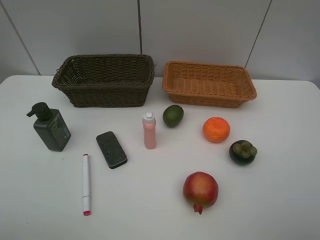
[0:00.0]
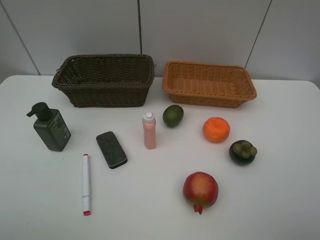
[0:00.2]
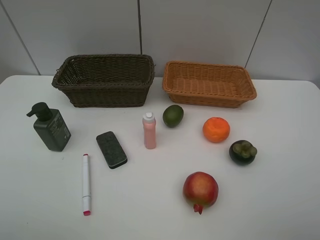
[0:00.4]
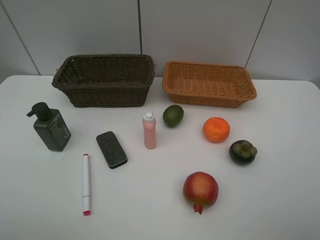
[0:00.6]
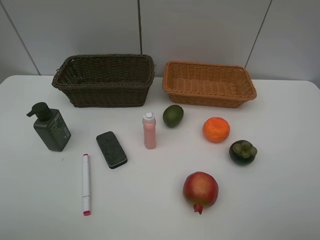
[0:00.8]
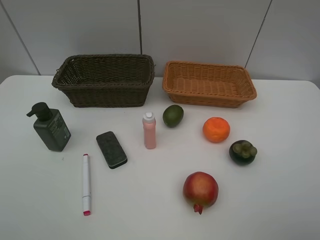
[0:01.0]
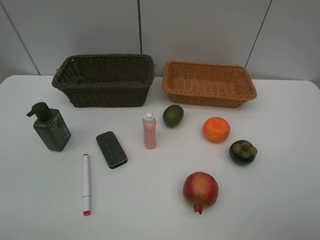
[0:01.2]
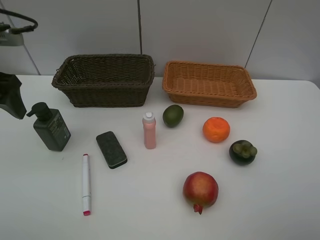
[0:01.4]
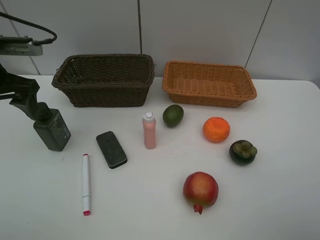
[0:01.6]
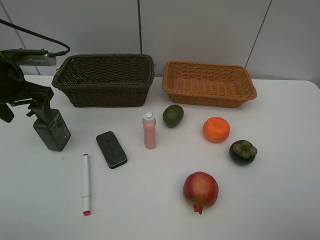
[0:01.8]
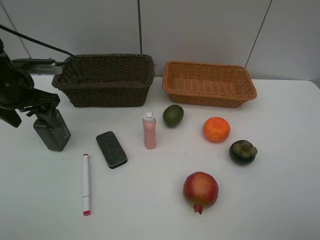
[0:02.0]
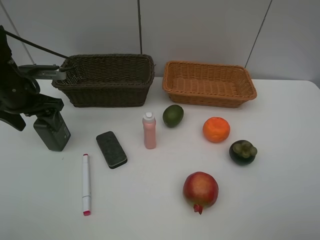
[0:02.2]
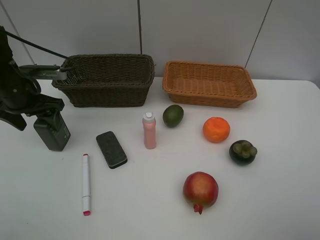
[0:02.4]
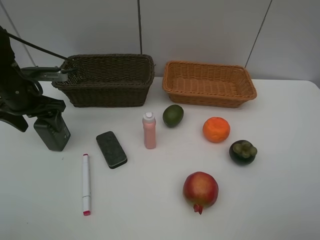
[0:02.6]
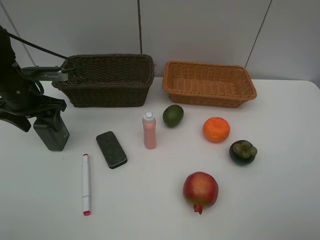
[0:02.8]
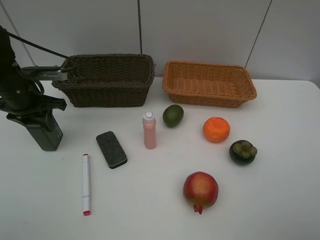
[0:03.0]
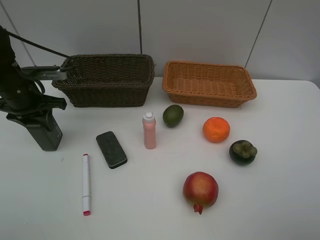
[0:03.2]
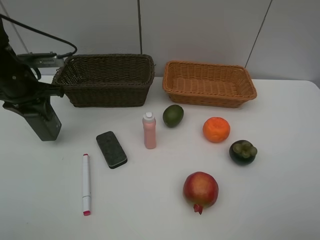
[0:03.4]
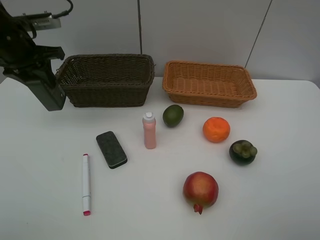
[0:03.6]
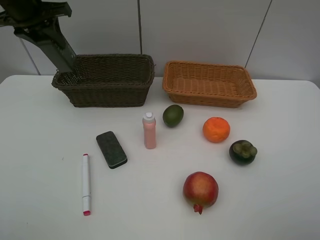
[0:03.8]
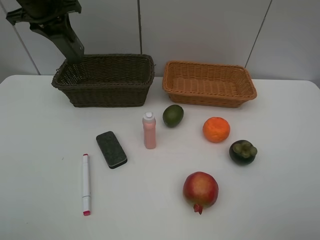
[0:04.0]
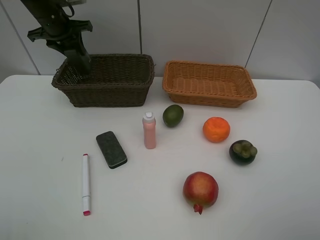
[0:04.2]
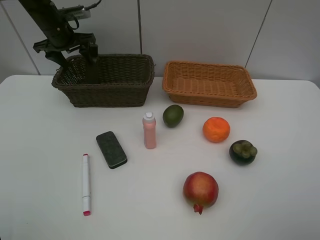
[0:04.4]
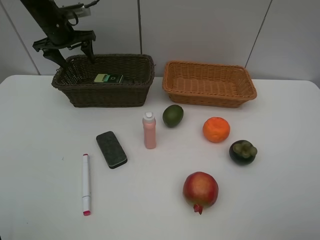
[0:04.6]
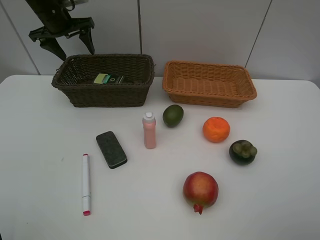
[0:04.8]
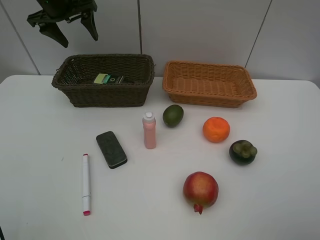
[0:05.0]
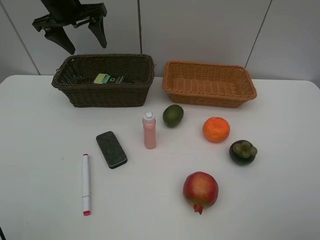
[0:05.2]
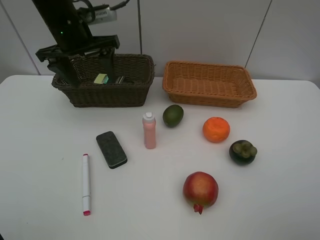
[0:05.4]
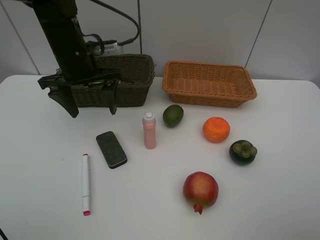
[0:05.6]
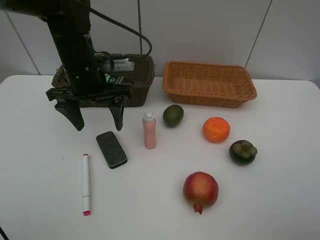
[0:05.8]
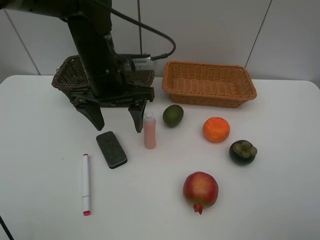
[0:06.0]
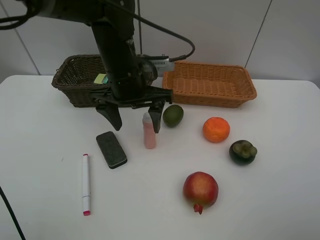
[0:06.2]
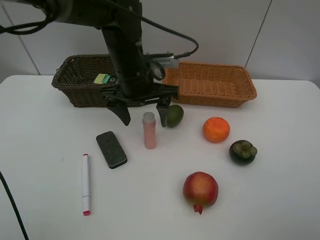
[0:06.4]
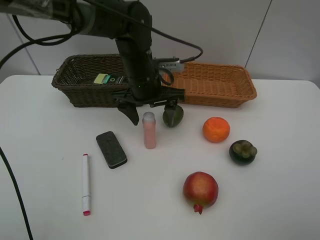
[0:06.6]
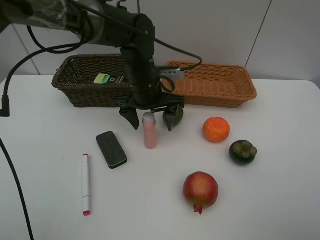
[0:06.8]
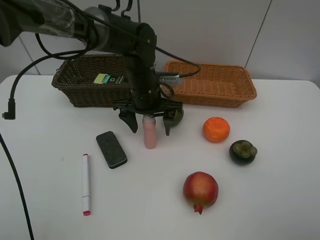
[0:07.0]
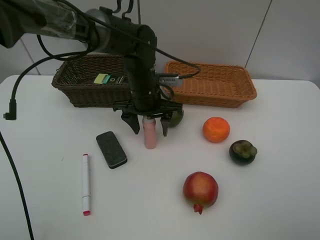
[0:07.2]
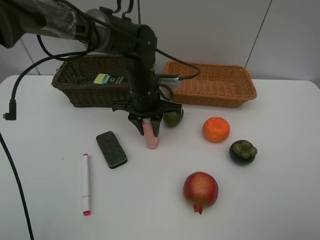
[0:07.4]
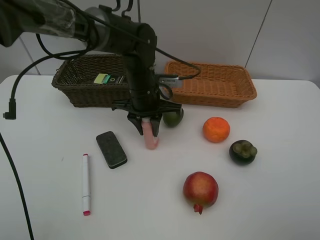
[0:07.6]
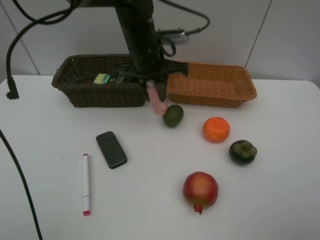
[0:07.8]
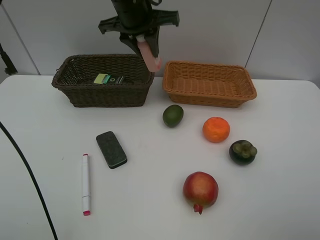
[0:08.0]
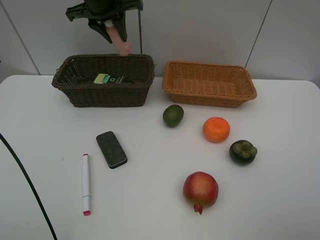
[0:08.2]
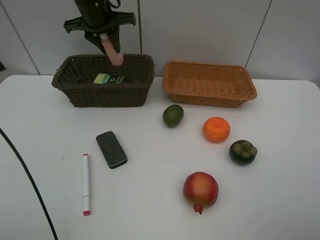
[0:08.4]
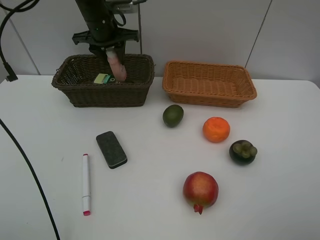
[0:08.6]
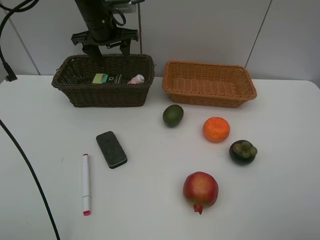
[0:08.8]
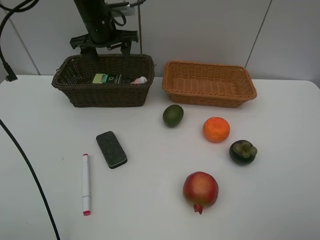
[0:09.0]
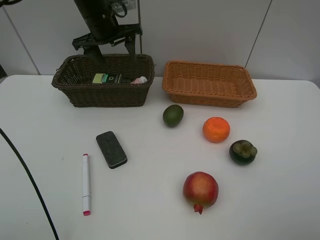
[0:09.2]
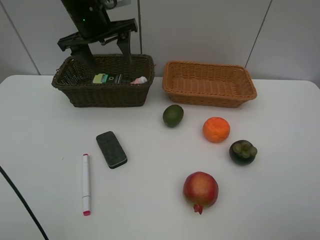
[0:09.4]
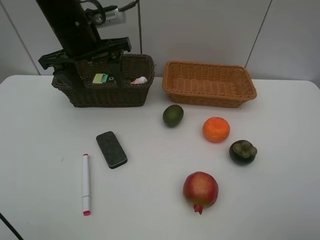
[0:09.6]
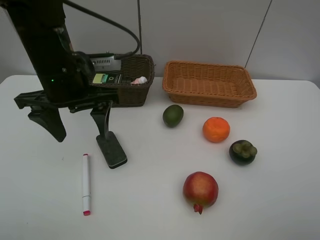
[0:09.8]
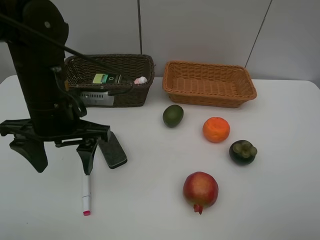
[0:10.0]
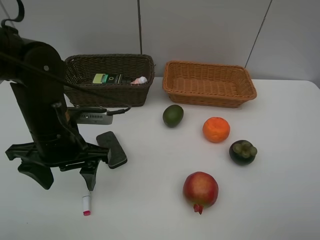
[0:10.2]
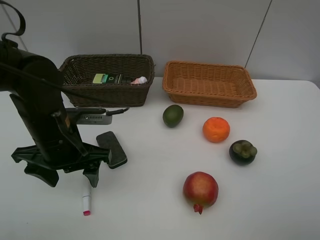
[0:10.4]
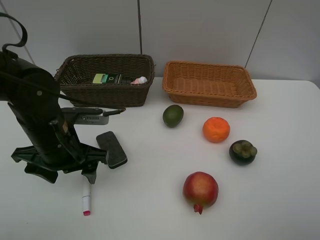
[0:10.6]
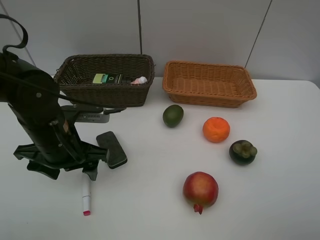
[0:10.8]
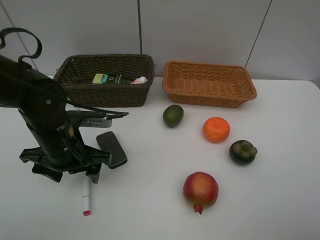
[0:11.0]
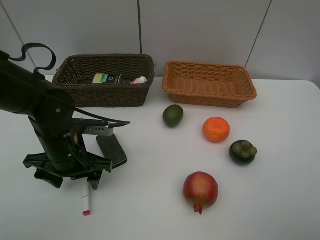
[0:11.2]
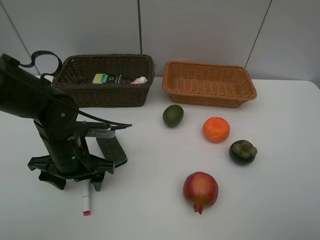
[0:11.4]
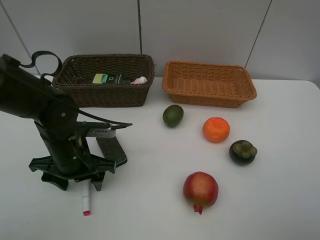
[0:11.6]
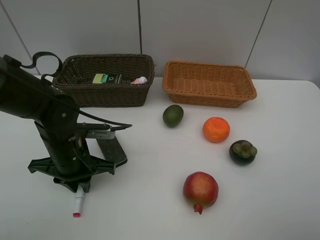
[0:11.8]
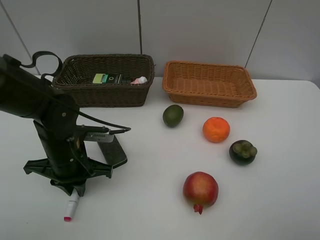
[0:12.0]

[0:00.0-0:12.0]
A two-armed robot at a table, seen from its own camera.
Task of the whole recording: Place multiple objects separately in different baskets.
Step, 0.0 to 3.4 s: Pick up the hard facial cleanser with left gripper.
Step, 3.6 to 4.8 s: Place the hard facial cleanser in the dark basket with left gripper.
Step, 5.0 to 7.6 s: Pick up the laundry detergent with left gripper.
Step, 7.8 to 8.8 s: Place the laundry detergent in the dark basket with left gripper.
0.0 to 1.6 s: The left gripper travels forward by some 30 cm.
1.6 to 3.0 s: The left gripper is displaced downward by about 10 cm, and closes its fingers.
3.0 to 4.4 s: The left gripper travels forward by some 15 cm, and opens up.
4.4 to 6.0 s: The left gripper shifts some 25 cm backward and to the right.
6.0 to 7.6 s: The left gripper moves downward and to the right, roughly 10 cm, and closes up.
7.6 to 9.0 s: The left gripper is displaced forward, to the left and upward by approximately 20 cm, and opens.
9.0 to 10.4 s: The left gripper moves backward, approximately 25 cm.
10.4 to 12.0 s: The left gripper moves downward, some 5 cm, and closes its fingers.

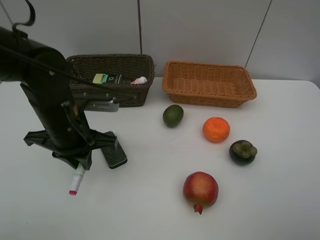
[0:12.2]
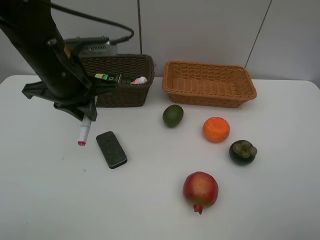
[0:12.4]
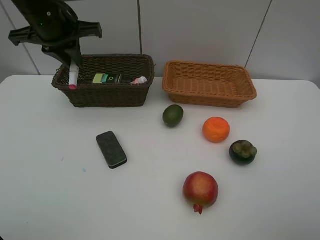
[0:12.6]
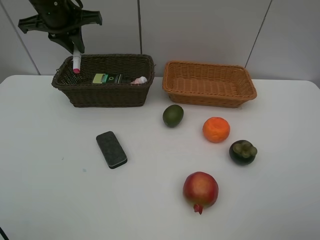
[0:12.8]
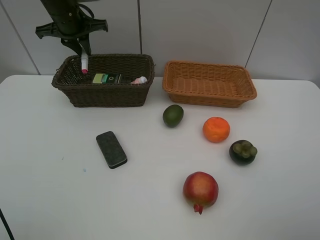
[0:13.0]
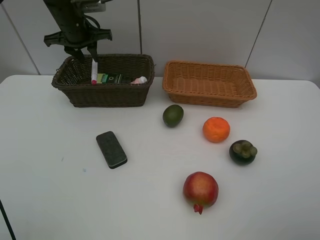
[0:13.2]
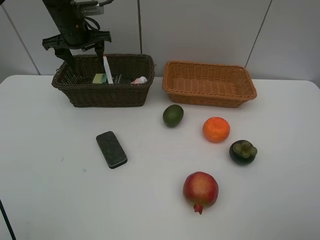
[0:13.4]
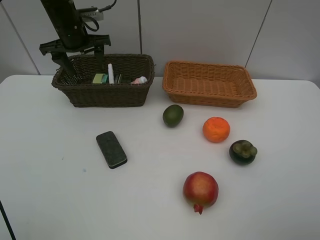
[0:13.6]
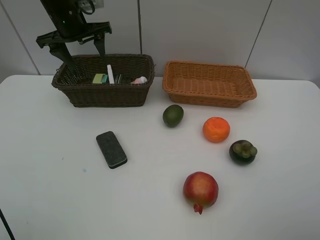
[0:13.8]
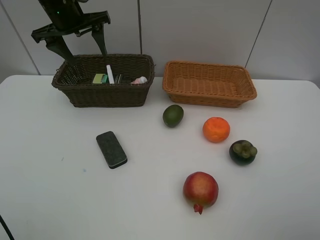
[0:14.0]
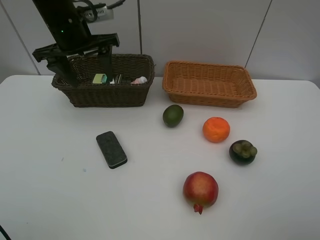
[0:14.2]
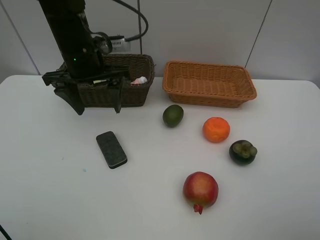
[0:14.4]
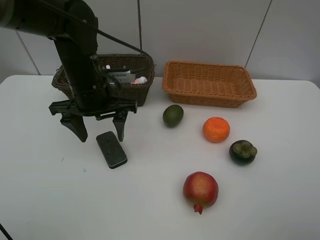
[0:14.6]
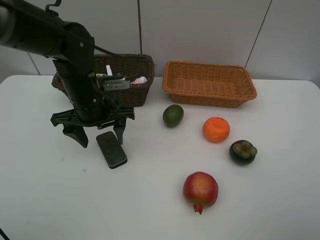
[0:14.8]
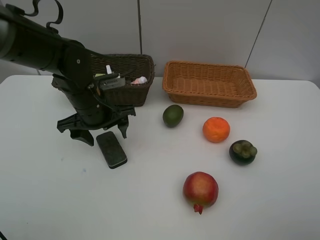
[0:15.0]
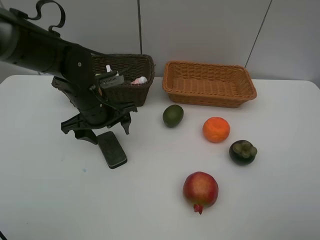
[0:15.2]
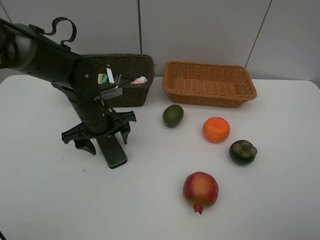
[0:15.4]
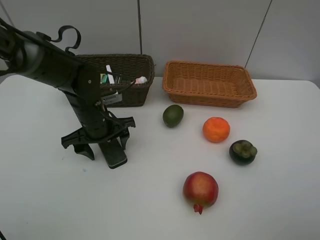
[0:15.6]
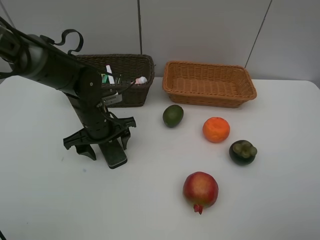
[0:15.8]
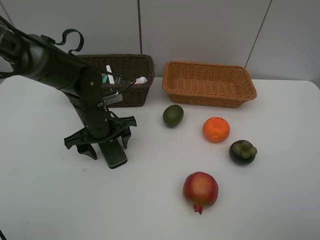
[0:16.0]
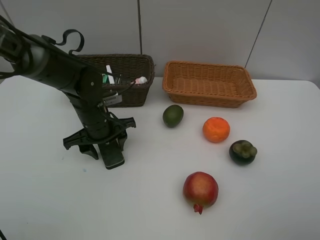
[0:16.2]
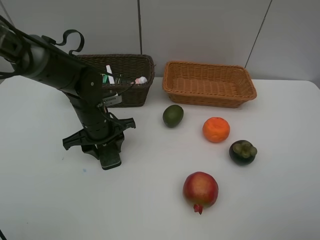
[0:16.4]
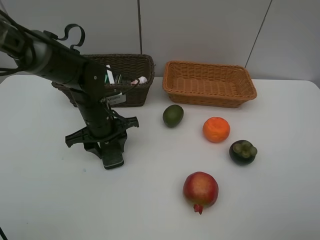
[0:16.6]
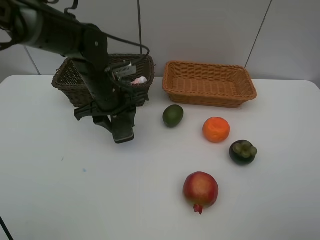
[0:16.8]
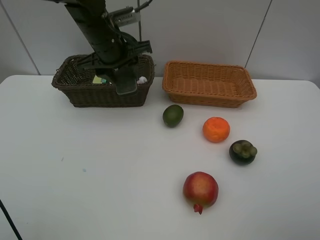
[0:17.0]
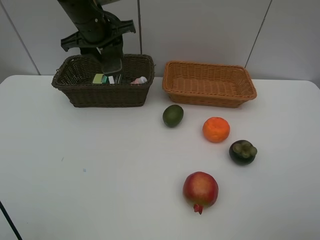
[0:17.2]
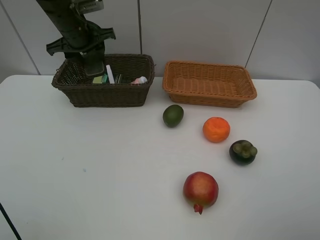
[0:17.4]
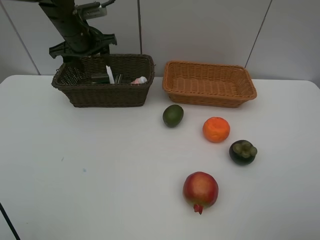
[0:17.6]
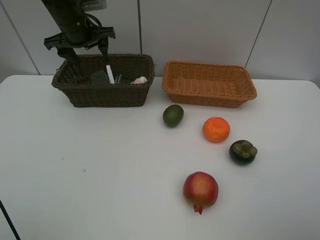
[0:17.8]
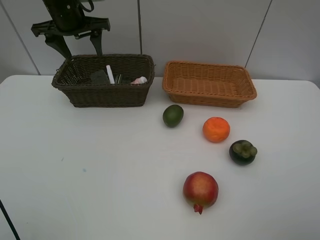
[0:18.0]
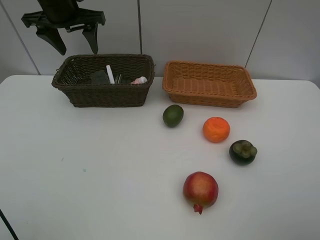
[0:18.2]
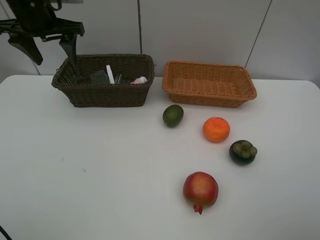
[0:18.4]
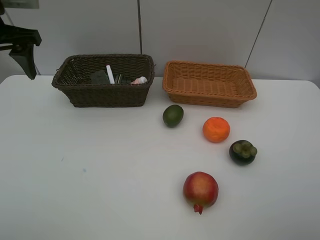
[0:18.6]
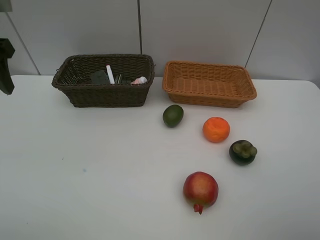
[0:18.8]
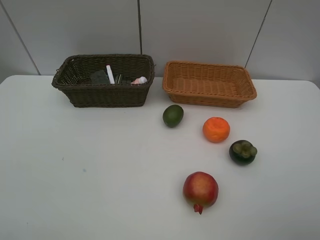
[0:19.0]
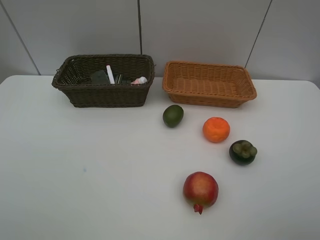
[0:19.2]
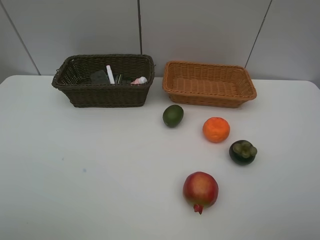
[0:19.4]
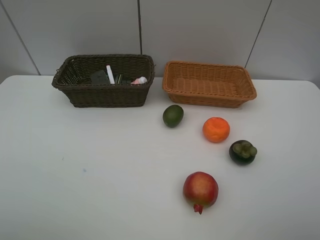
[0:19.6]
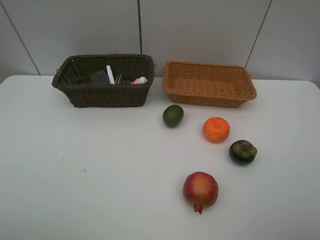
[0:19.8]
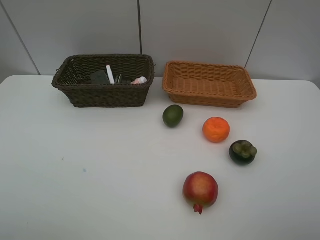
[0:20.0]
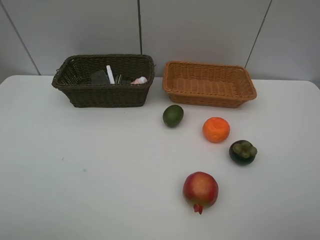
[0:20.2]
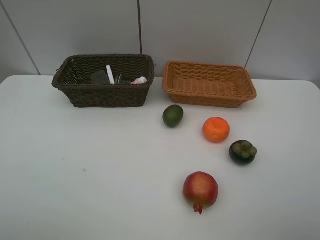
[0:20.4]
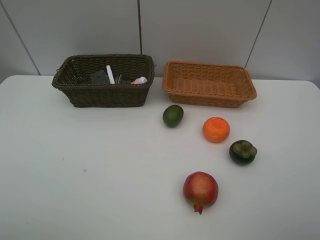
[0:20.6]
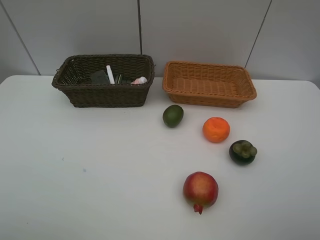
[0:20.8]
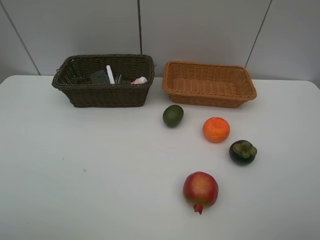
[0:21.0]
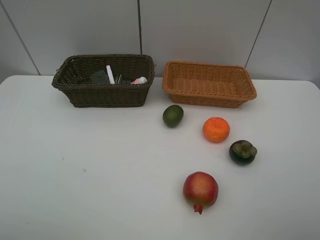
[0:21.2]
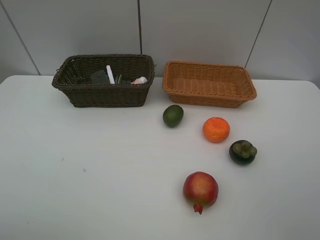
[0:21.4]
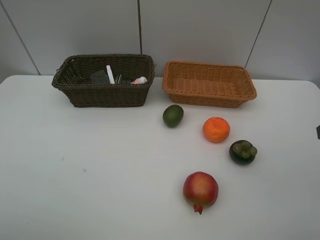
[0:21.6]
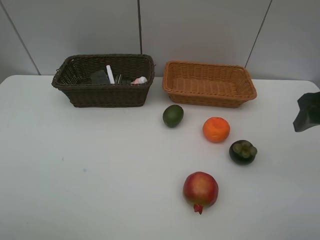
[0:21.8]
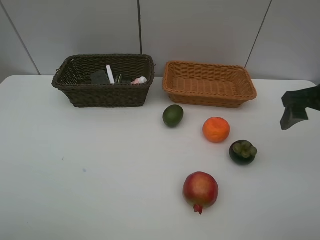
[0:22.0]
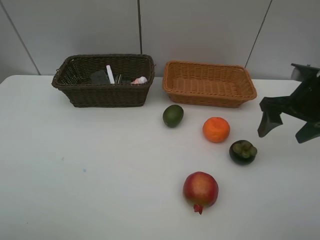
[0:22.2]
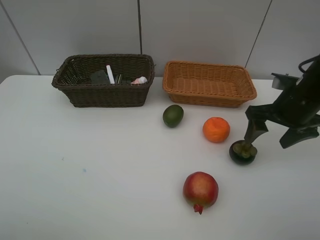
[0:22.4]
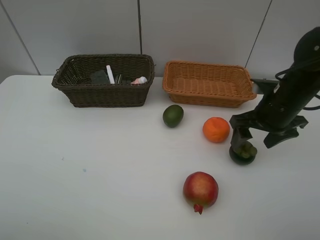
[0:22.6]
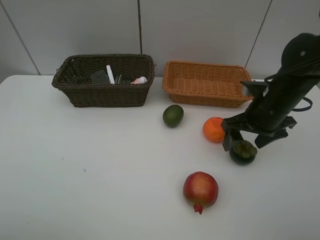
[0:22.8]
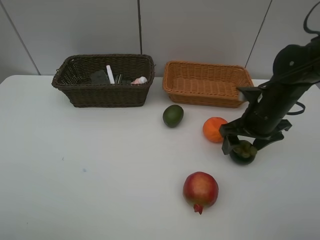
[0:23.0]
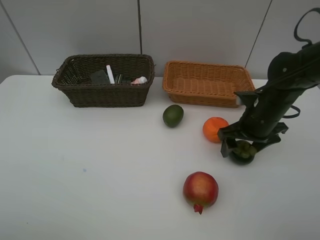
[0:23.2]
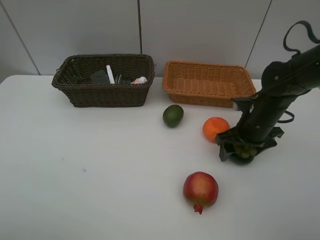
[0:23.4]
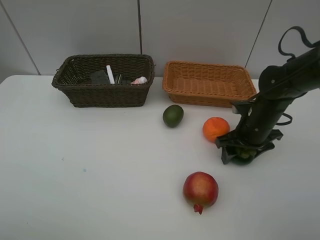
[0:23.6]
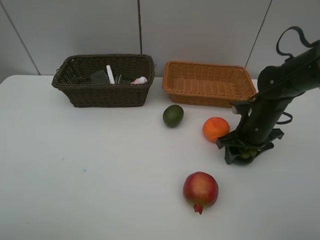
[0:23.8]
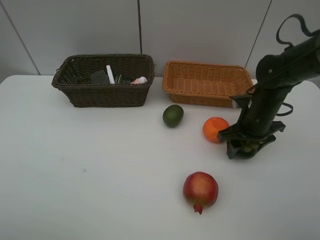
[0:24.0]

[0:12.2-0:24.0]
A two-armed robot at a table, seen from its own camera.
Task of the whole recording: Place multiple objects separately in different baskets.
Step, 12.2 to 13.2 s: Place the red marker in the dark basket with left gripper.
Step, 13.4 to 16.6 s: Pick up blackboard eraser with left gripper.
Step, 16.8 to 18.0 s: Place the blackboard eraser in the dark basket with left gripper.
Step, 18.2 to 24.0 s: Pick up the mangosteen with right gripper.
12.2 to 13.6 s: The left gripper is displaced forward by some 20 cm, and opens up.
13.6 to 15.2 s: The left gripper heads backward, downward and to the right, covering some 20 cm.
15.2 to 16.6 s: The left gripper closes up.
16.6 to 18.2 s: The left gripper goes up and down, about 20 cm each way, reversing 2 times.
18.2 to 19.6 s: The left gripper is displaced backward by roughly 40 cm.
21.0 to 22.6 s: The right gripper heads forward, covering some 30 cm.
22.6 to 24.0 s: The right gripper moves downward, approximately 5 cm, and closes up.
